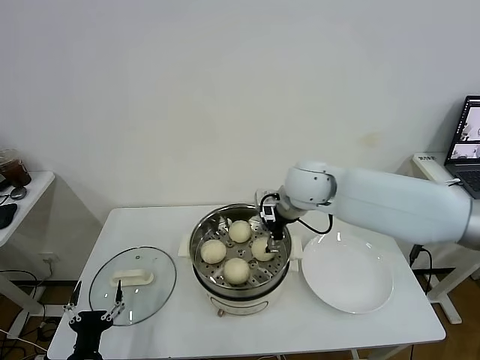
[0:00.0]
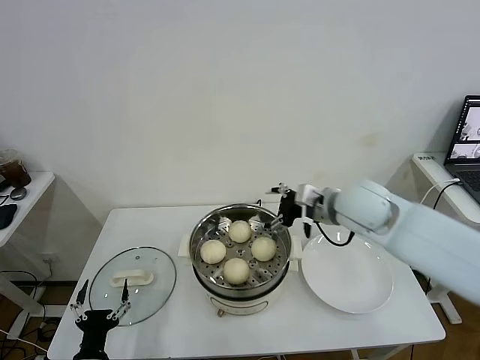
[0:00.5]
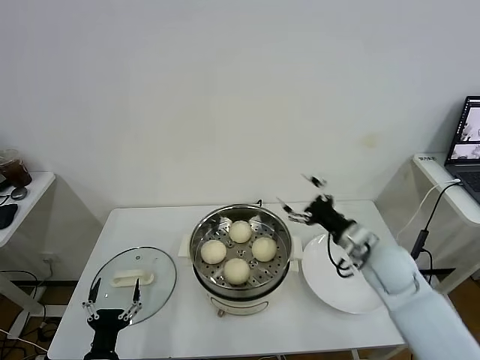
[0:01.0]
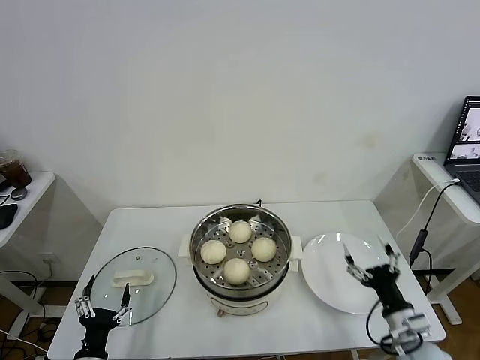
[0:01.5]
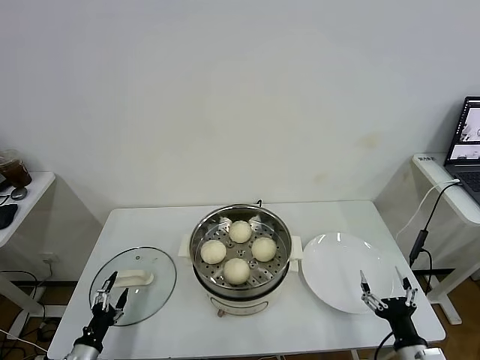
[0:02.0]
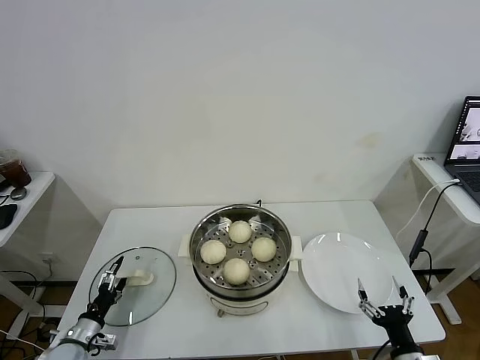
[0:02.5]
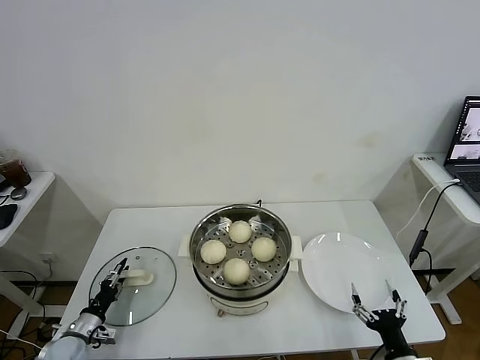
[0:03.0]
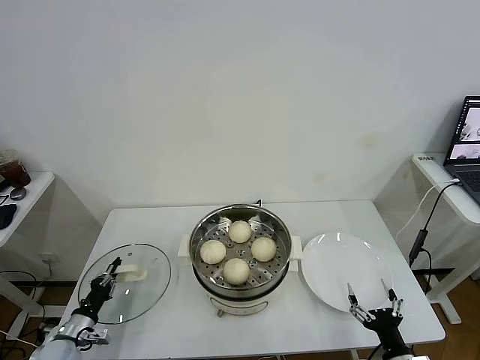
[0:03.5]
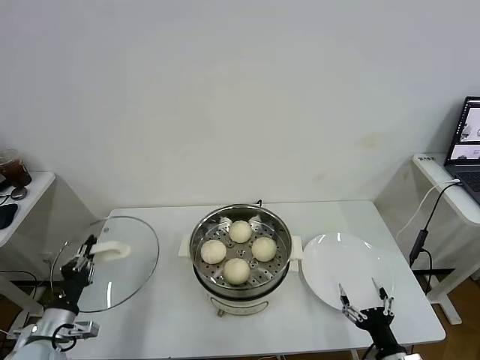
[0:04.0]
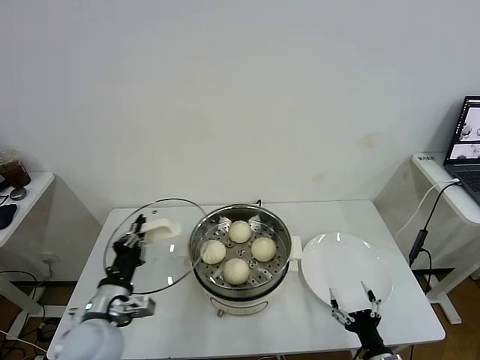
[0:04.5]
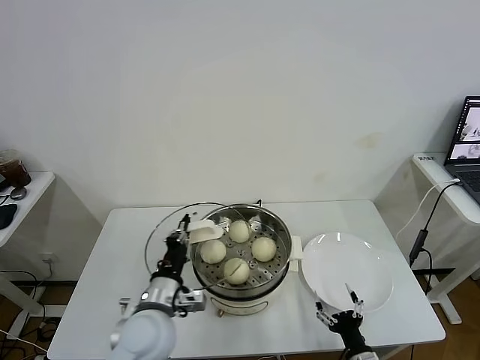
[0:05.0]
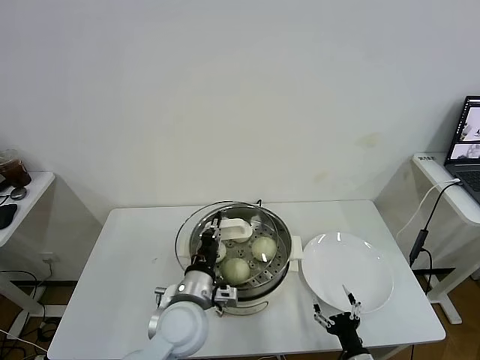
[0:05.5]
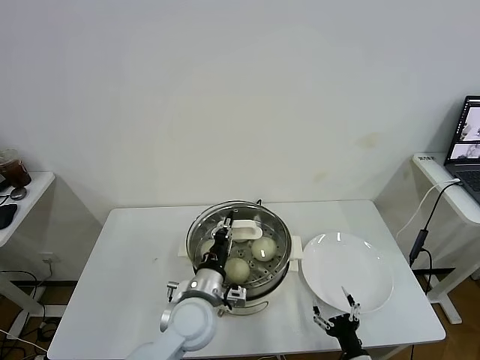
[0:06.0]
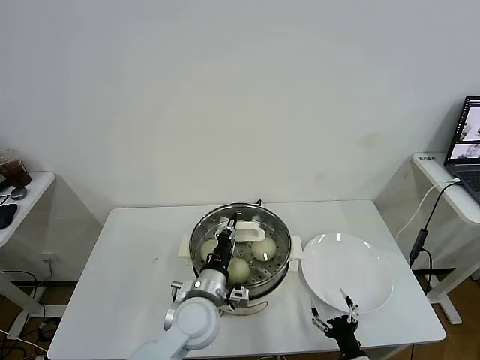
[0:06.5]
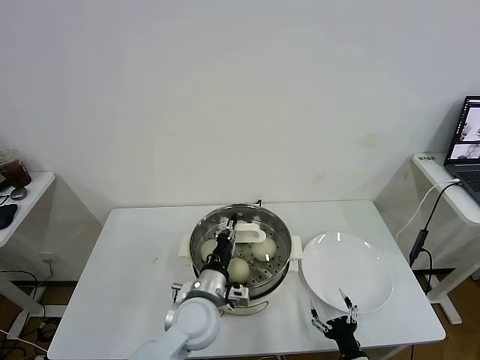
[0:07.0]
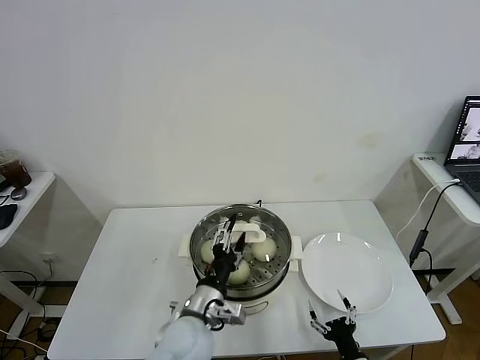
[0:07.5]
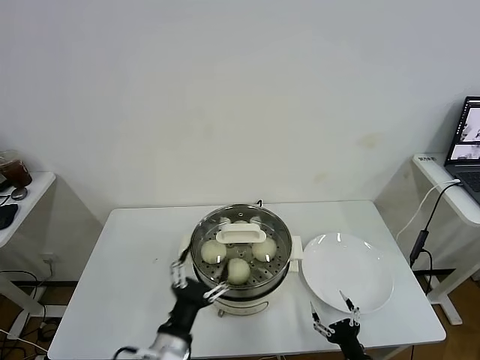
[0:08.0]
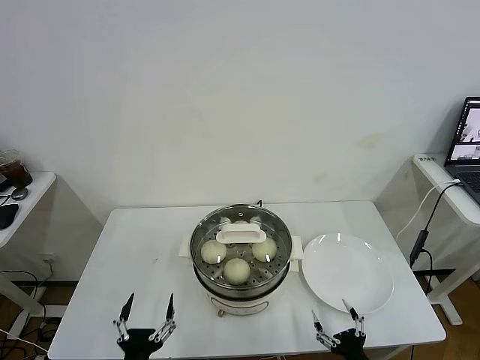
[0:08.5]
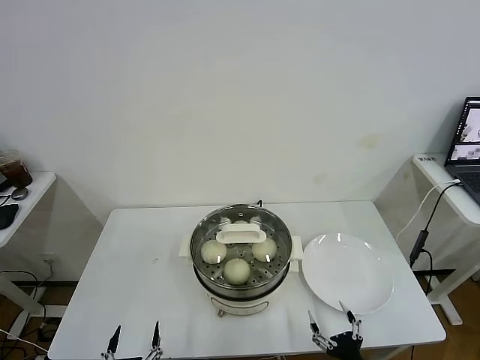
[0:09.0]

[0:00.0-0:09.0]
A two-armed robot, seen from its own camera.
Task of the whole recording: take steamed baozi put them in steamer.
Step, 0:00.0 to 0:03.0: Grasp the pot lid with left gripper.
Step, 0:03.5 to 0:07.0: Place the pot lid on the steamer with left gripper.
0:00.0 to 0:02.0: The right gripper travels backward, downward and to the right by about 50 cm. Meanwhile the left gripper goes approximately 10 cm to the left and downward.
0:02.0 to 0:04.5: The right gripper shifts by approximately 5 cm; the left gripper shifts some 20 cm upward and to the right, and closes up.
0:04.5 to 0:07.0: The left gripper moves to the right, approximately 20 cm. Meanwhile the right gripper moves about 5 cm.
0:07.0 to 0:09.0: The right gripper moves some 5 cm, while the left gripper travels backward, to the left and downward by approximately 30 cm, and opens up.

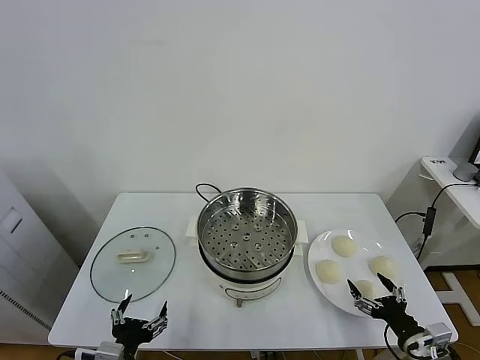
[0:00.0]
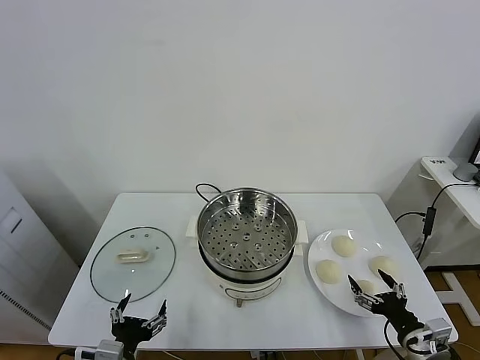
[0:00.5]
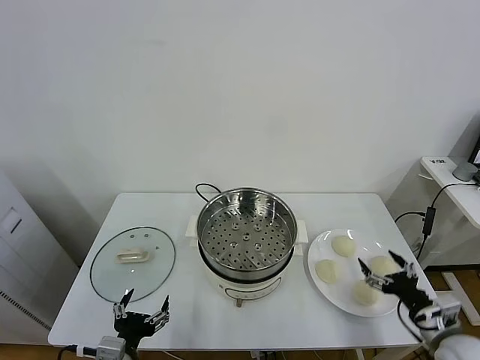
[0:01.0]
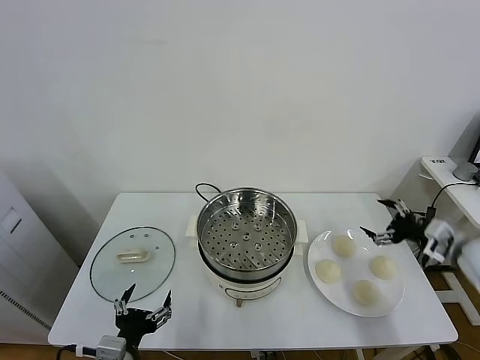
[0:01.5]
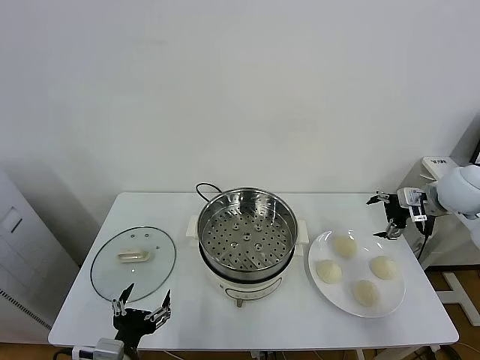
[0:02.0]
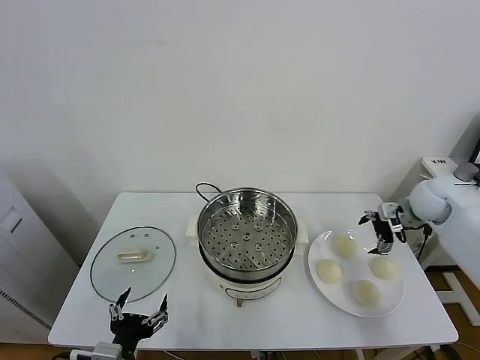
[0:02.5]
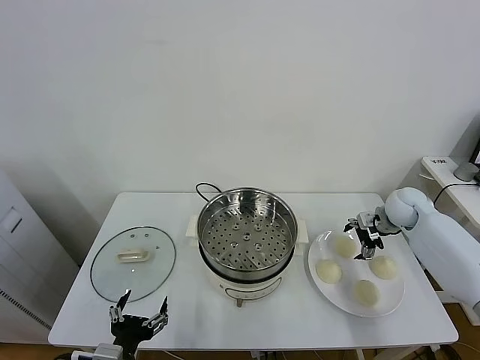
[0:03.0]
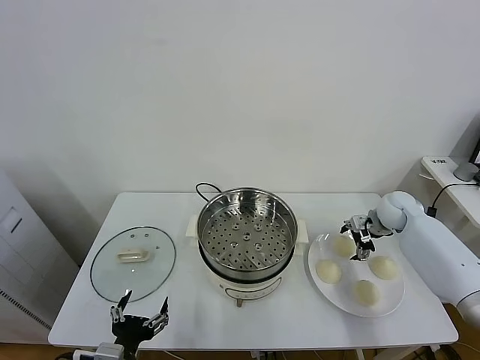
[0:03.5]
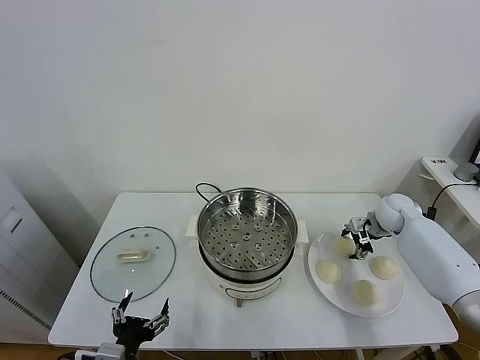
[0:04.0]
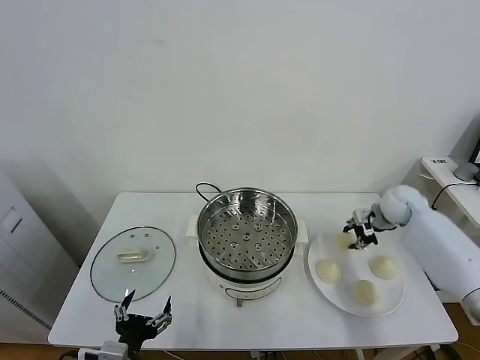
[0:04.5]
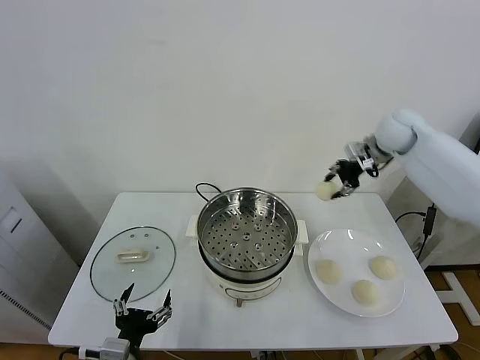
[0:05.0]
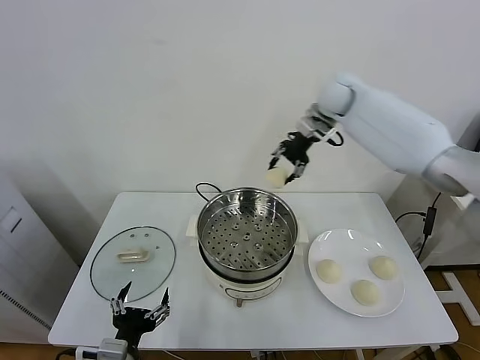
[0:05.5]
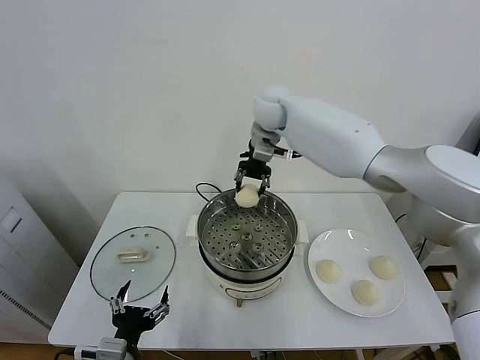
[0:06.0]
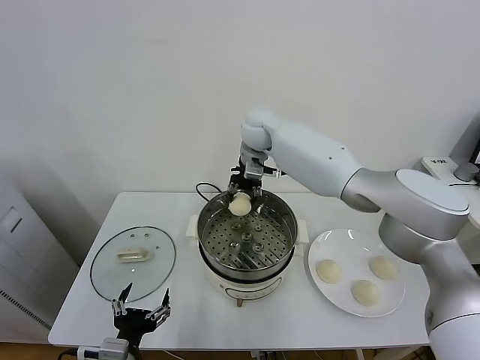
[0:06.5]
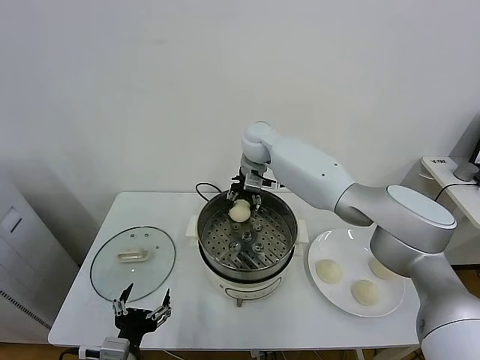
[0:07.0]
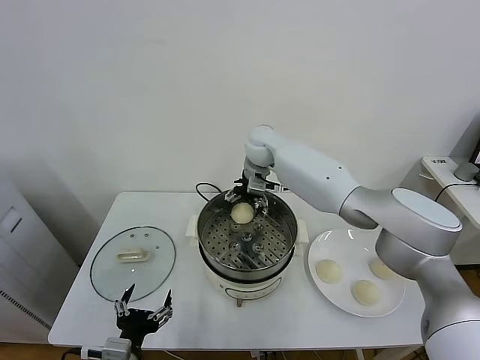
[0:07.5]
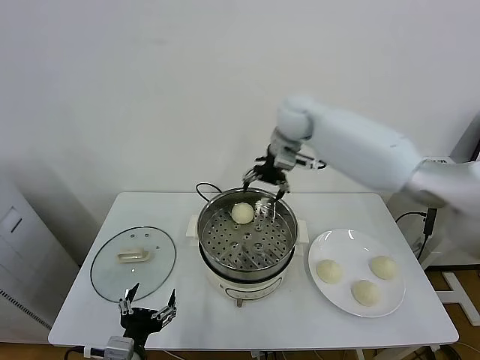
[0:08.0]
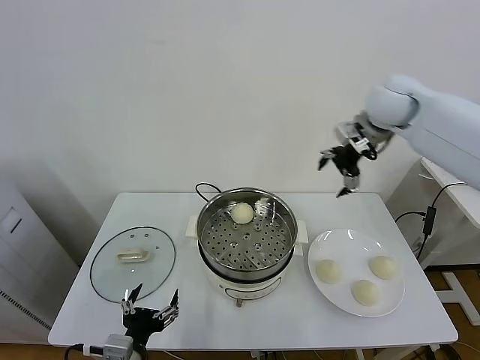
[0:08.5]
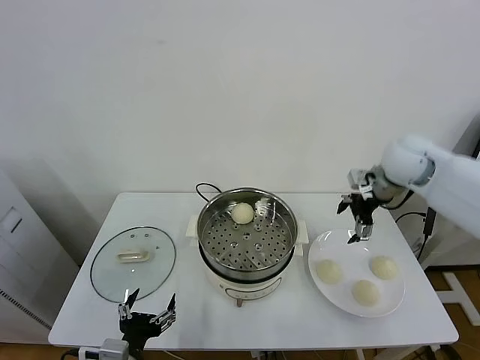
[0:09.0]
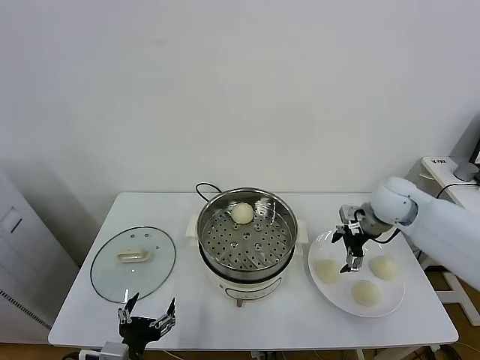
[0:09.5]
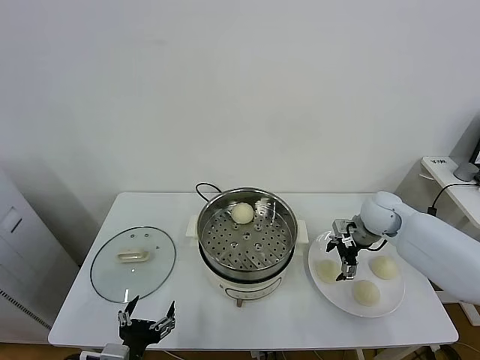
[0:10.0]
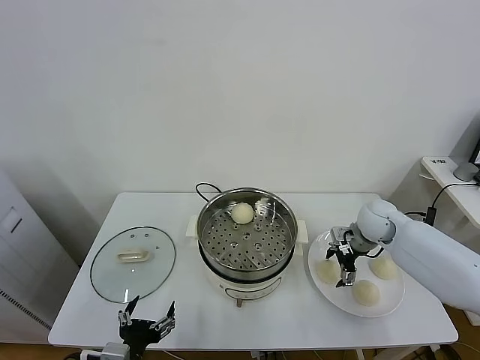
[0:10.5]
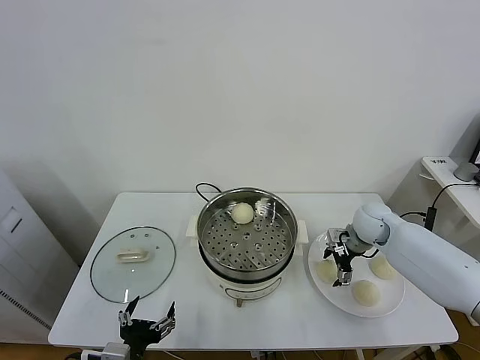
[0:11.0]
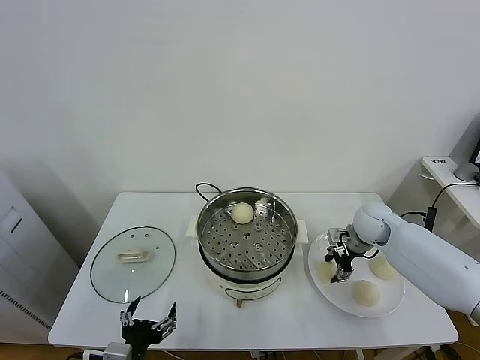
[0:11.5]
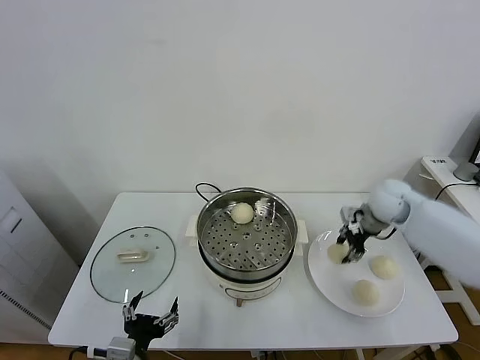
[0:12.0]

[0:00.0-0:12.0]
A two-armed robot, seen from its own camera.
Task of the whole recording: take steamed baozi put them in steamer.
Step, 0:00.0 to 0:04.0: Grasp the baozi in the plate with right gripper.
Step, 0:04.5 to 0:07.5: Place the baozi on the steamer with right gripper.
Step, 0:08.0 to 0:11.5: Grasp the baozi in the plate with right gripper.
0:02.0 to 0:04.0: The right gripper heads downward and forward, covering about 15 cm, and closes up.
0:04.0 to 0:06.0: The right gripper shifts some 40 cm to the left and upward.
0:06.0 to 0:08.0: The right gripper is displaced to the right by roughly 10 cm, travels downward and back again, approximately 10 cm each way, and opens.
0:08.0 to 0:10.0: The right gripper travels downward and to the right by roughly 30 cm.
0:10.0 to 0:12.0: The right gripper moves upward, about 5 cm, and closes its fingers.

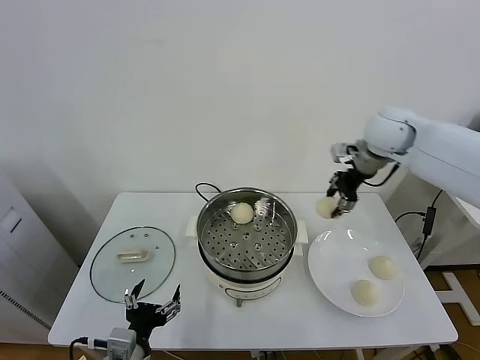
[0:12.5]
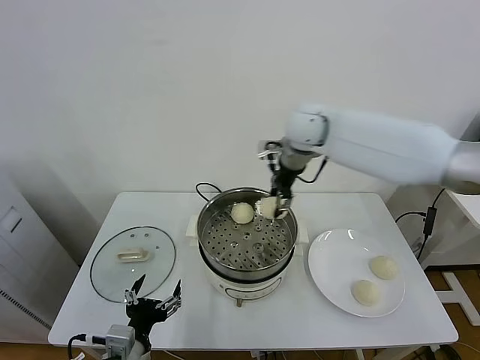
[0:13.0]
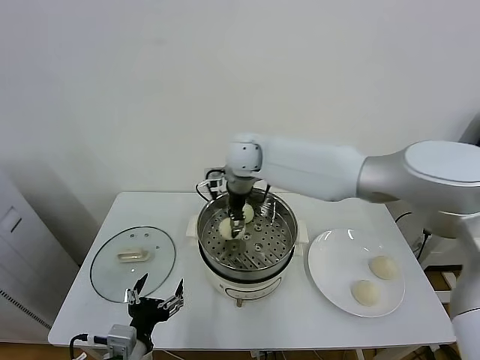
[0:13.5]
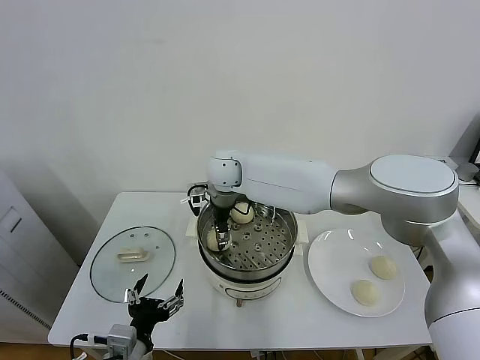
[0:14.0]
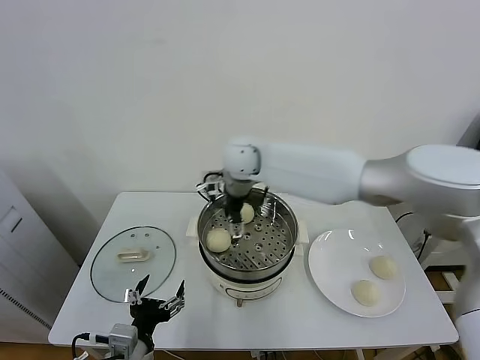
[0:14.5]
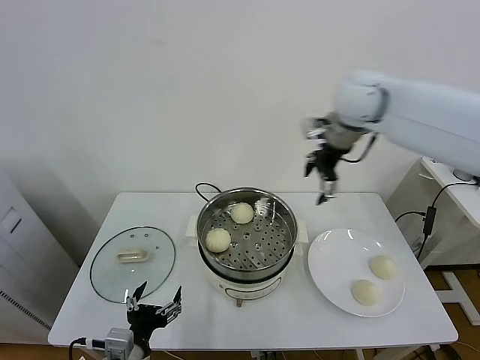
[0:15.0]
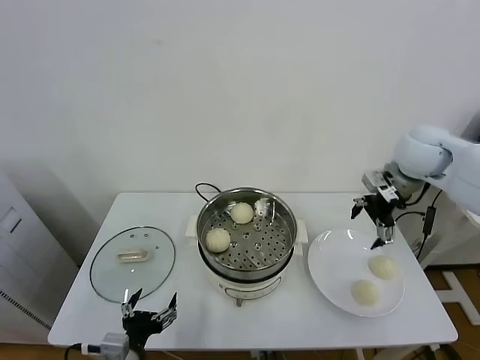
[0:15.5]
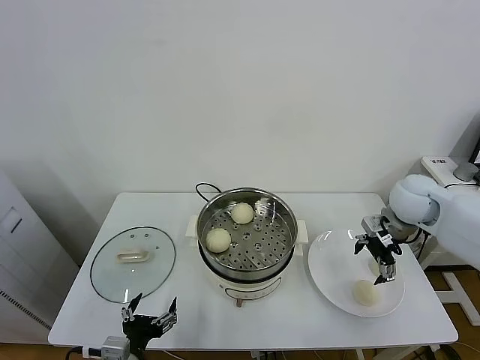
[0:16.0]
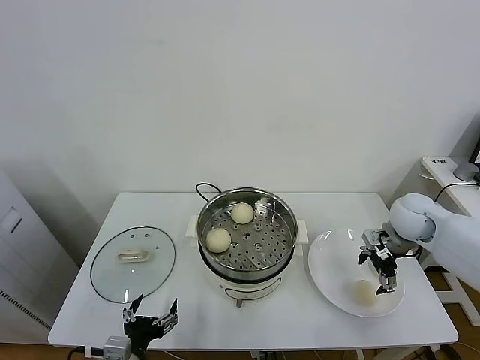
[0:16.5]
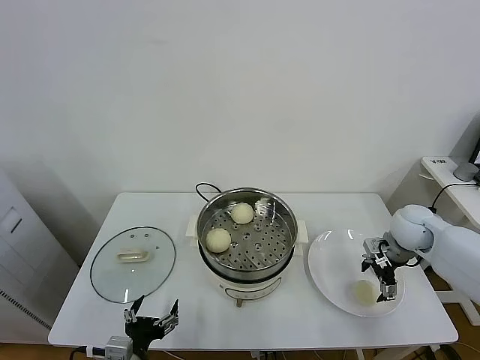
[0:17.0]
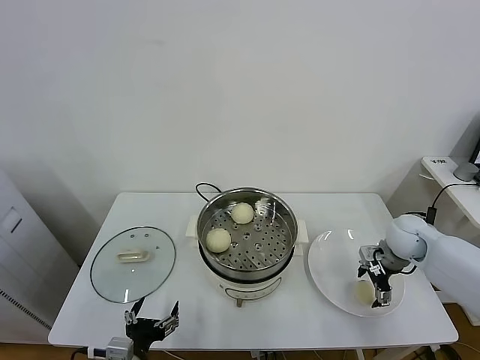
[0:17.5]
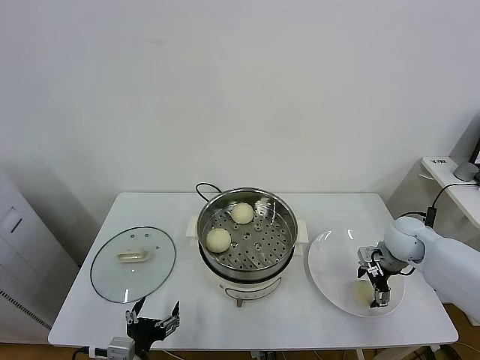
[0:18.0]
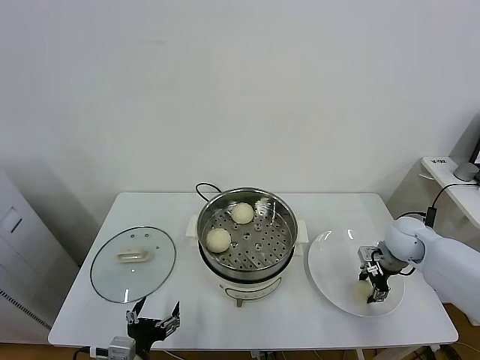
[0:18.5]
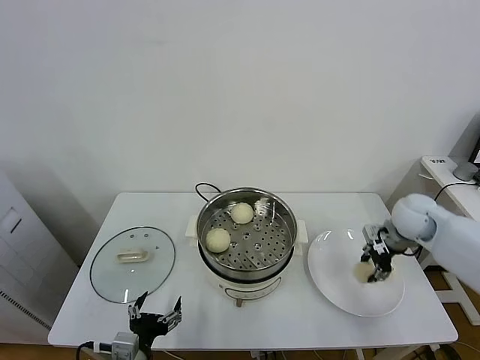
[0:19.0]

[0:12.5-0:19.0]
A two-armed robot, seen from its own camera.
Task of the whole recording: take steamed baozi put them in steamer.
Step, 0:12.5 to 0:14.0: Place the baozi on the steamer with right gripper.
Step, 0:14.5 to 0:18.5: Grasp the baozi in the plate with right gripper.
0:12.5 to 0:14.5: The right gripper moves to the left, some 25 cm, and opens.
0:14.5 to 0:17.0: The right gripper shifts about 40 cm to the right and downward.
0:17.0 to 0:19.0: The right gripper changes place by approximately 5 cm, and closes up.
